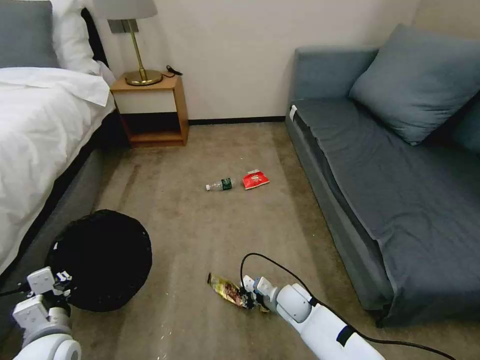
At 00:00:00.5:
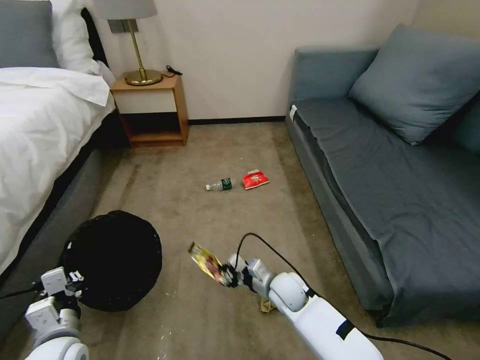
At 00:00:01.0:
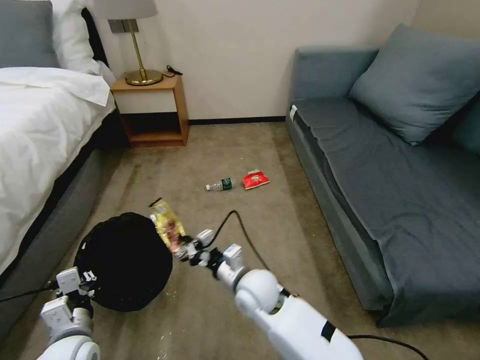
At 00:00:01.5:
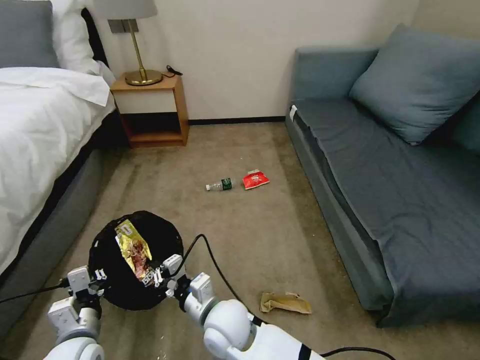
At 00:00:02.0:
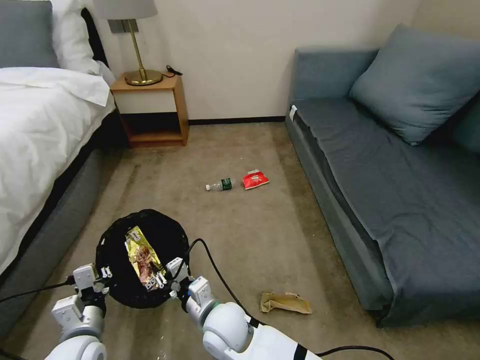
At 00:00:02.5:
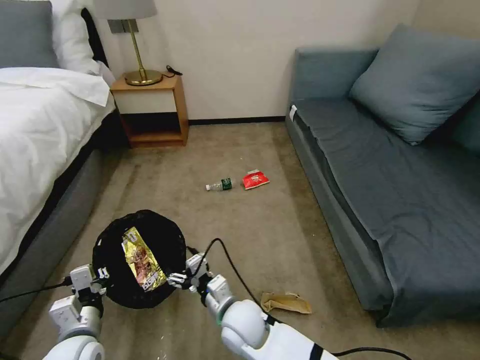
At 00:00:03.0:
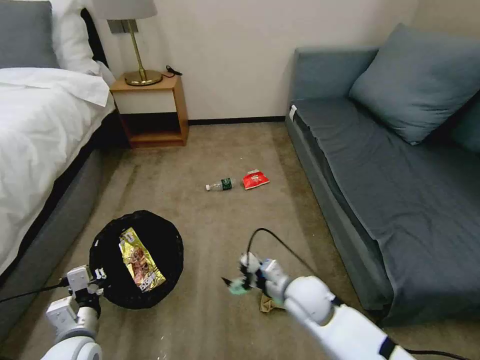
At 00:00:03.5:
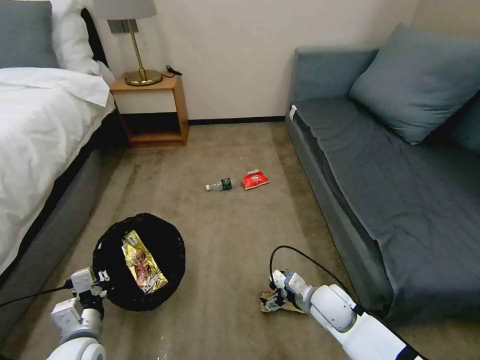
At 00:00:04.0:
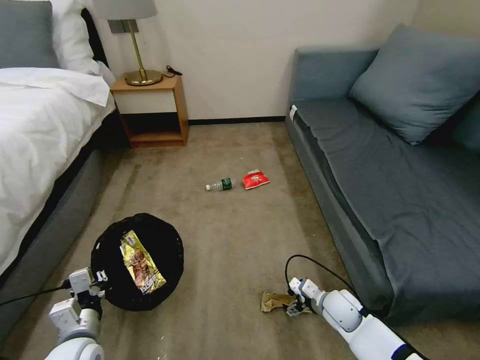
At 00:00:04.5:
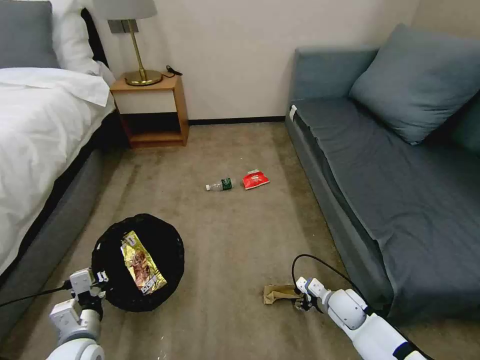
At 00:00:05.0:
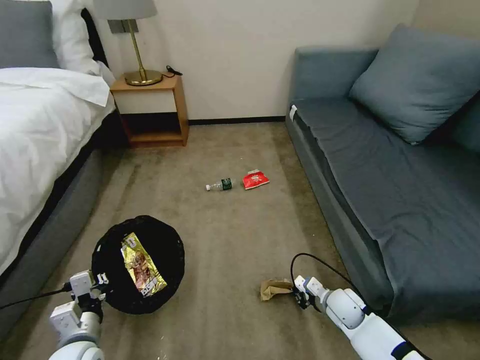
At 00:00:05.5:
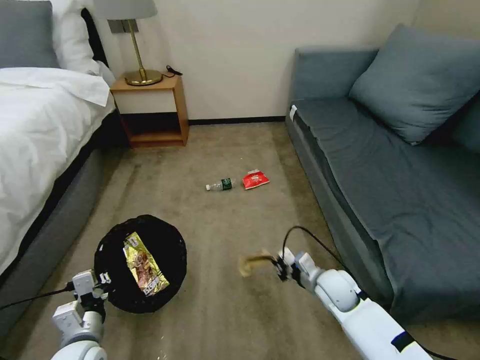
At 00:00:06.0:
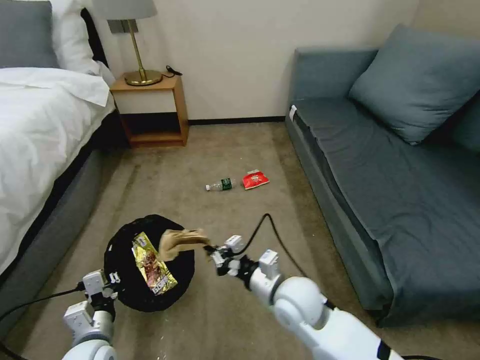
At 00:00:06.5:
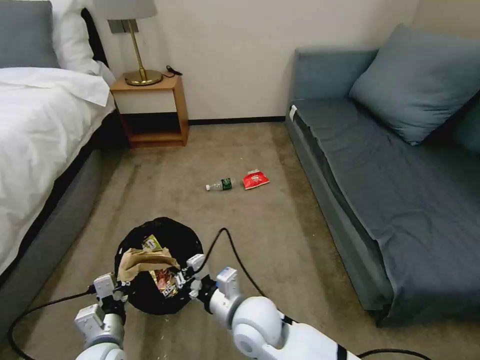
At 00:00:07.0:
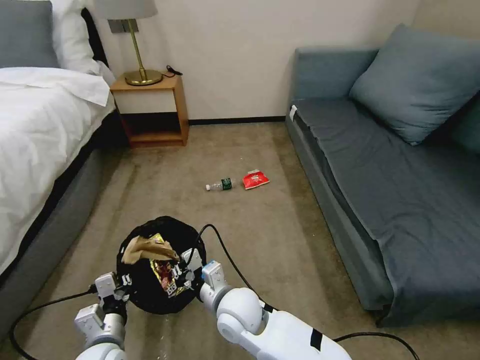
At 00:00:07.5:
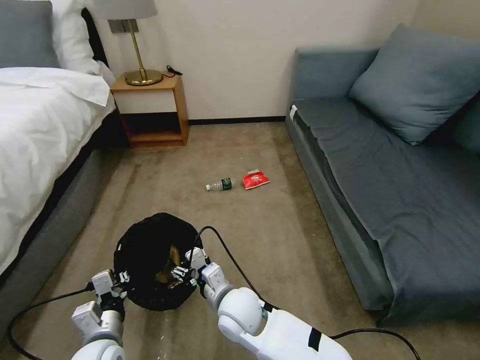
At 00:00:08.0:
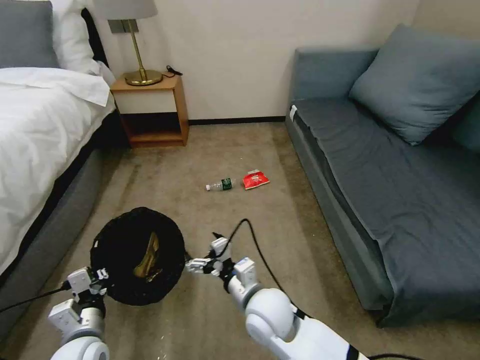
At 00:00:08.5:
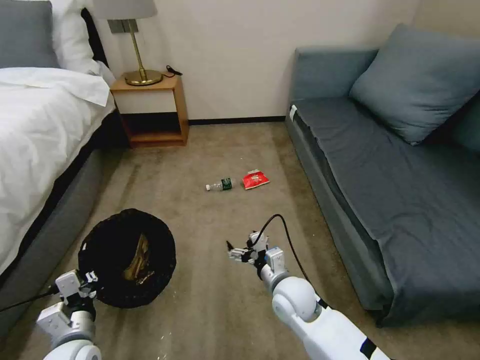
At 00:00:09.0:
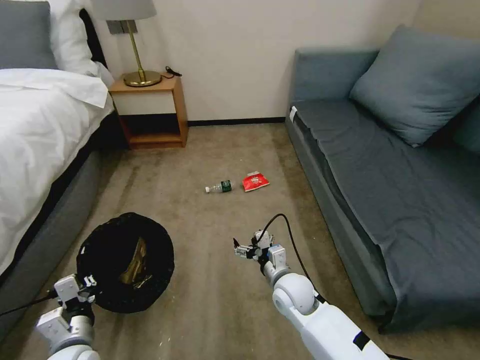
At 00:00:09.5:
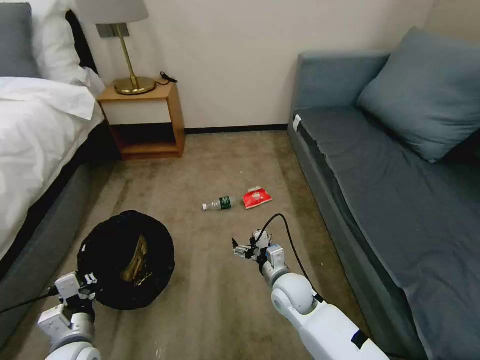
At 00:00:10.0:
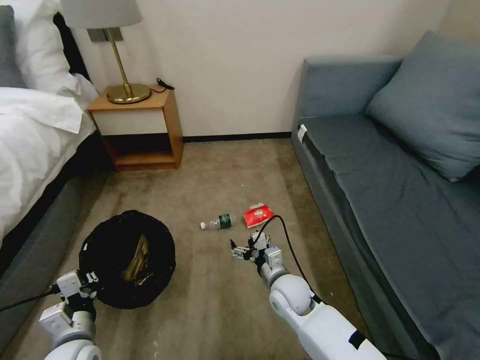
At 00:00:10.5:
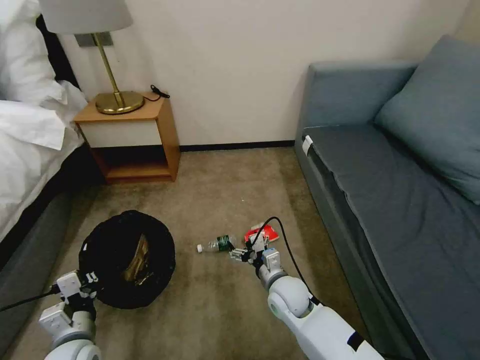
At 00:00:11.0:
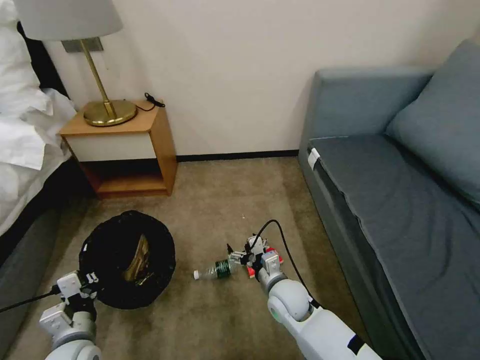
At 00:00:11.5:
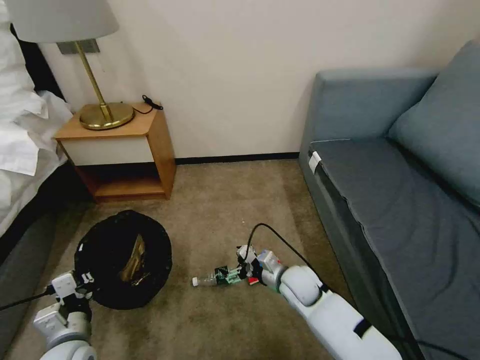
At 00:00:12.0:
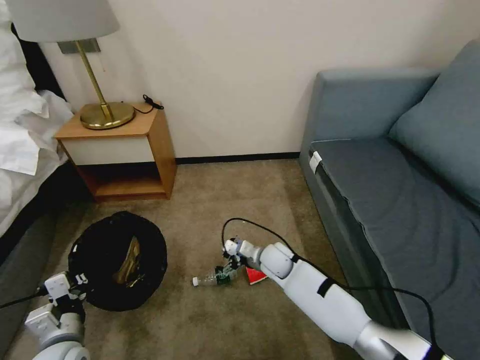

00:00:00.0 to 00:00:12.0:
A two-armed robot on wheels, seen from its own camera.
Task of the whole recording: Pick up the trash bin, then pick up the garbage on the floor and place it into the trash bin.
00:00:00.0 to 00:00:02.0: The right gripper moves to the left, upward and backward, roughly 25 cm.
00:00:02.0 to 00:00:04.0: The right gripper goes approximately 30 cm to the right, and opens.
00:00:04.0 to 00:00:06.0: The right gripper heads upward and to the left, covering about 20 cm, and closes its fingers.
00:00:06.0 to 00:00:08.0: The right gripper heads to the left, covering approximately 5 cm, and opens its fingers.
00:00:08.0 to 00:00:10.0: The right gripper is displaced downward, to the right and forward by some 10 cm.
00:00:10.0 to 00:00:12.0: The right gripper goes about 10 cm forward.

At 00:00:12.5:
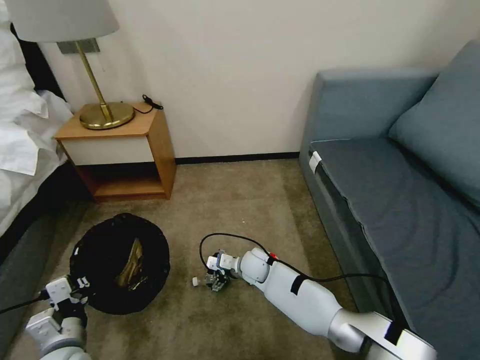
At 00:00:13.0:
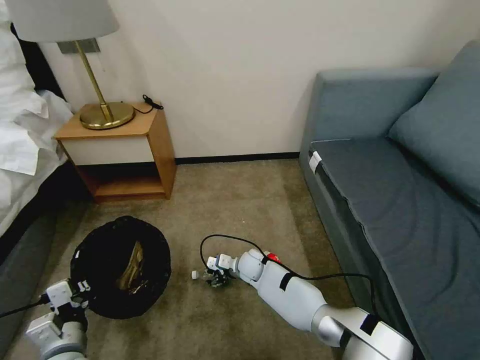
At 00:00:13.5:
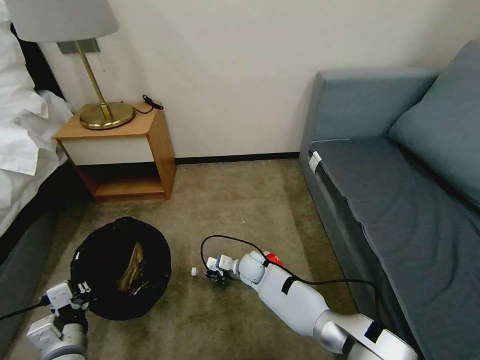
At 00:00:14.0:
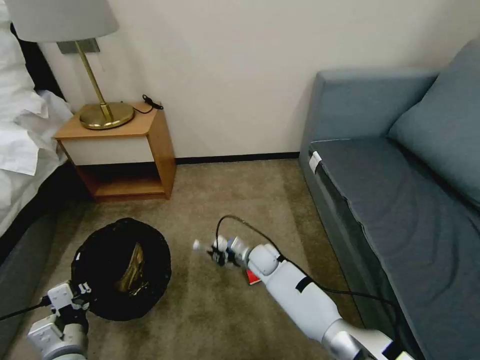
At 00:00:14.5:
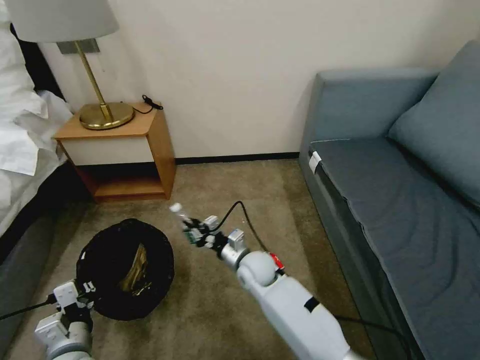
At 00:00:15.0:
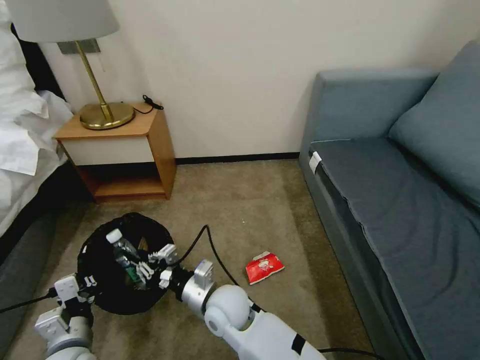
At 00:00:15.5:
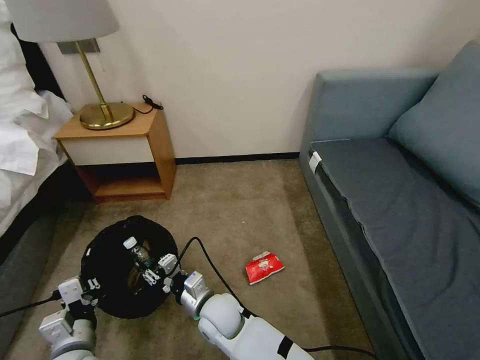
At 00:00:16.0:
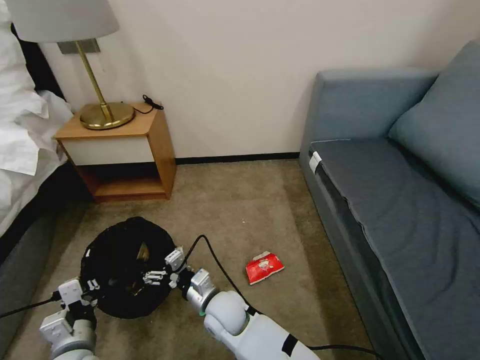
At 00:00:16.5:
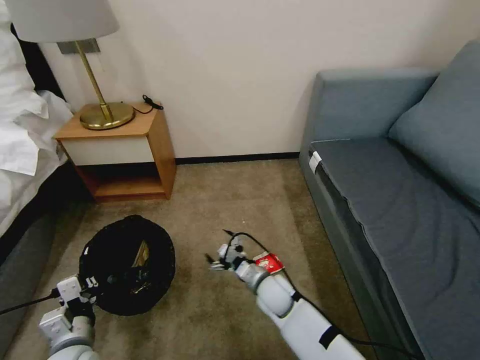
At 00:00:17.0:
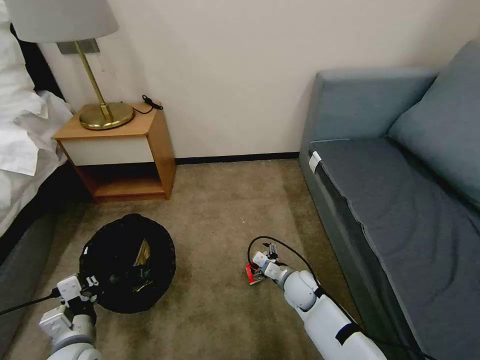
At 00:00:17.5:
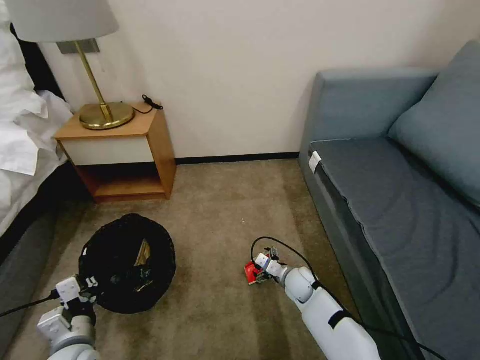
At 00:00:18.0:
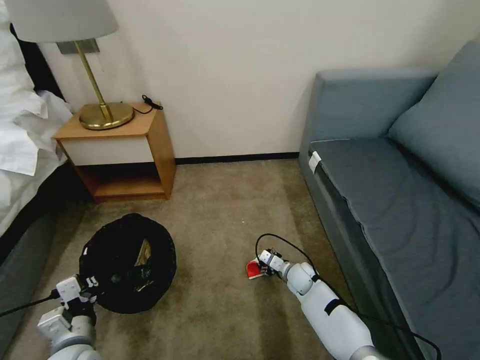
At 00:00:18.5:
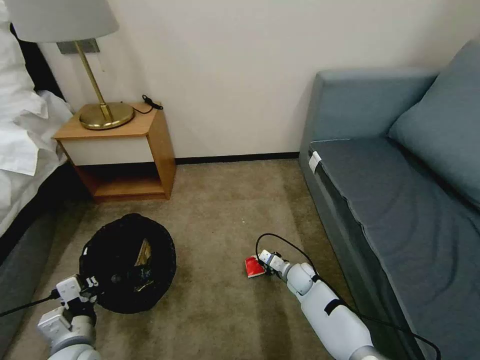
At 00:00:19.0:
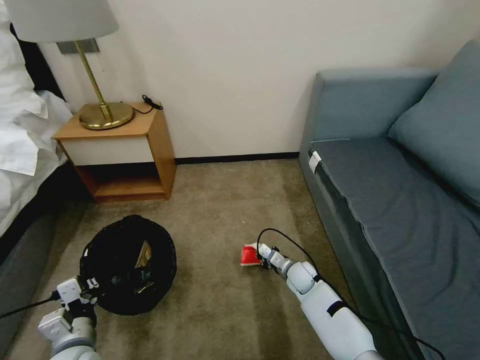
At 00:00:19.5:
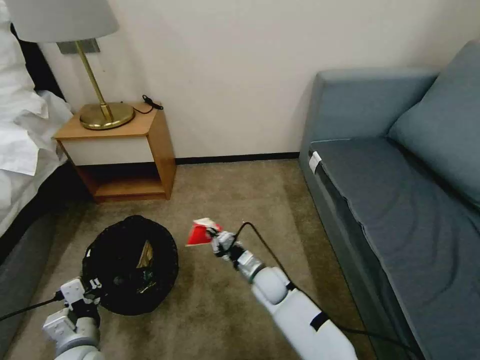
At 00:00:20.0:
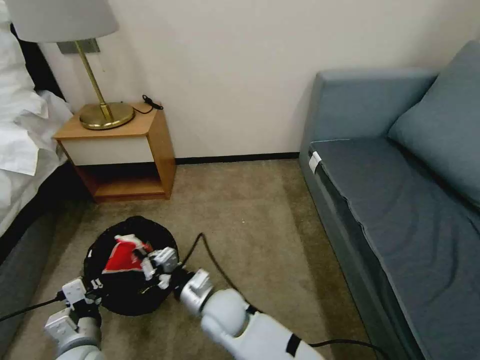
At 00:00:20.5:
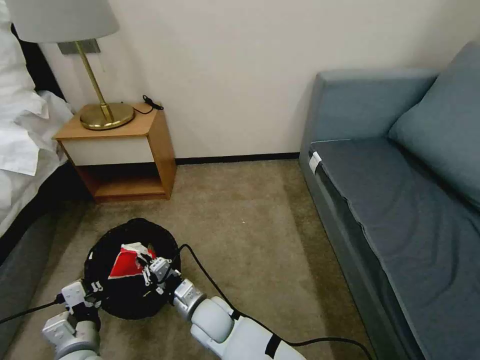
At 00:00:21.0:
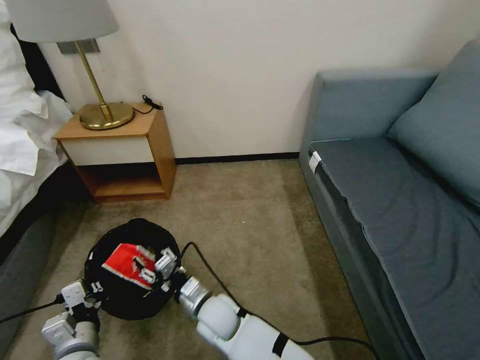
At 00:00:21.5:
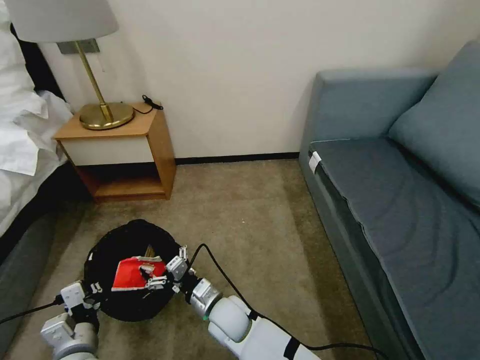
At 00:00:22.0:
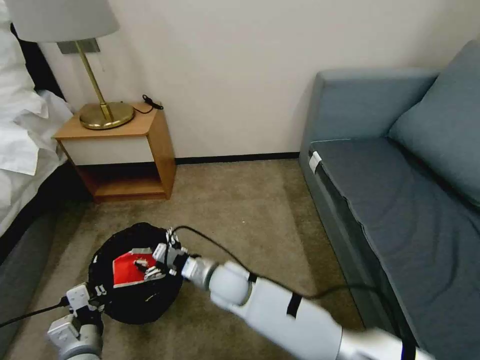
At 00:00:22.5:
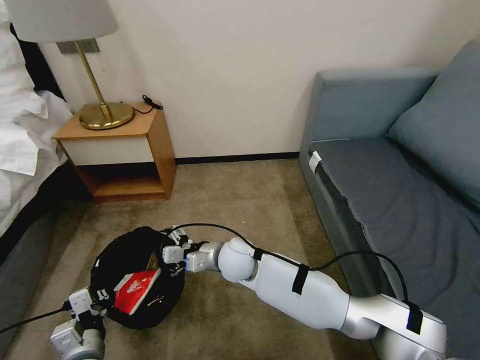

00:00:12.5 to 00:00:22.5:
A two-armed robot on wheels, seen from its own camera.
Task of the whole recording: Pick up the trash bin, then pick up the garbage on the floor and place it into the trash bin.
00:00:12.5 to 00:00:14.5: The right gripper travels upward by about 5 cm, and closes up.
00:00:14.5 to 00:00:16.5: The right gripper goes some 10 cm to the right and downward, and opens its fingers.
00:00:16.5 to 00:00:18.5: The right gripper moves to the right, downward and forward, some 15 cm, and closes up.
00:00:18.5 to 00:00:20.5: The right gripper goes about 30 cm to the left and backward.
00:00:20.5 to 00:00:22.5: The right gripper moves forward, upward and to the right, roughly 15 cm, and opens its fingers.

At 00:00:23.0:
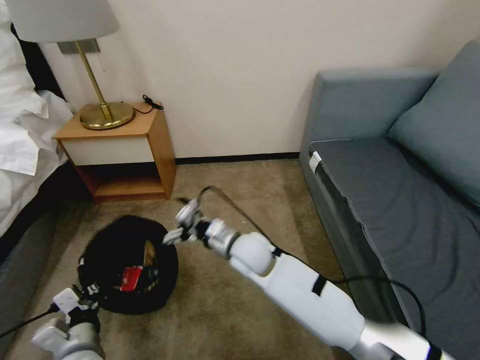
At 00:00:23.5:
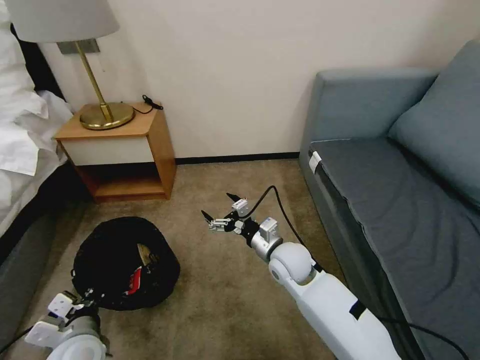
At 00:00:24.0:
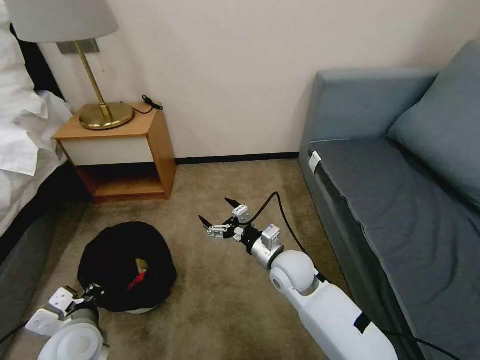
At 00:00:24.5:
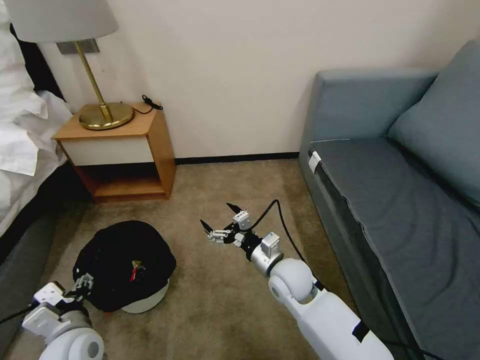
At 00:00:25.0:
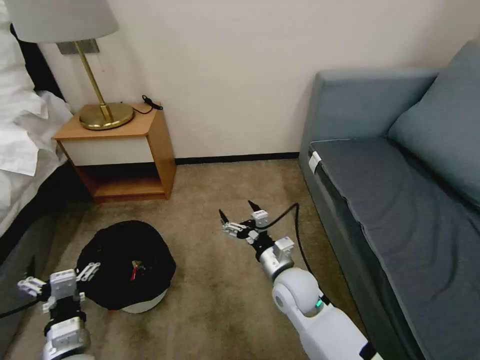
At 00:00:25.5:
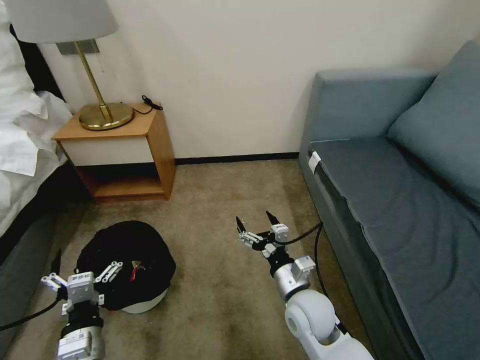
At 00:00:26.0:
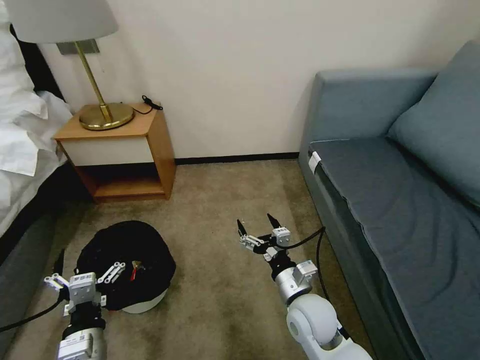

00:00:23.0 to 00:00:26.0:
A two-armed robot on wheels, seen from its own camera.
Task of the whole recording: Pick up the trash bin, then pick up the garbage on the floor and place it into the trash bin.
00:00:23.0 to 00:00:24.5: The left gripper opens, while the right gripper goes roughly 10 cm to the right.
00:00:24.5 to 00:00:26.0: The grippers both shift backward by roughly 5 cm.
